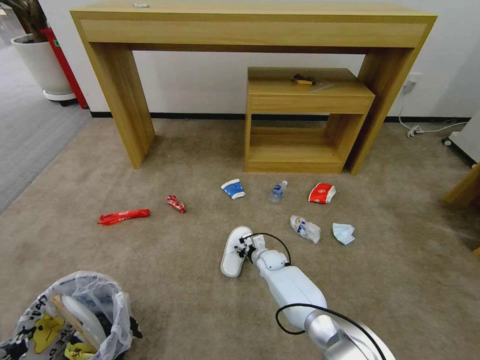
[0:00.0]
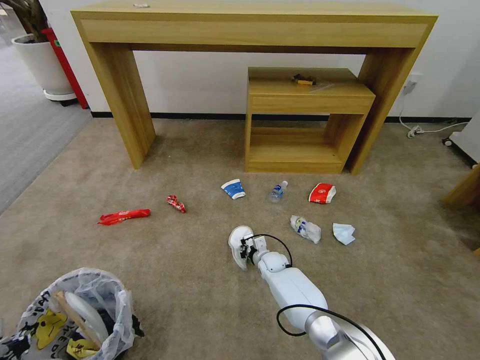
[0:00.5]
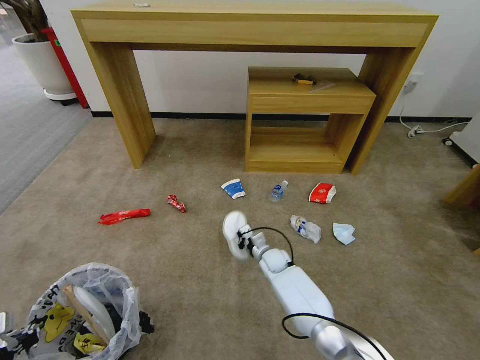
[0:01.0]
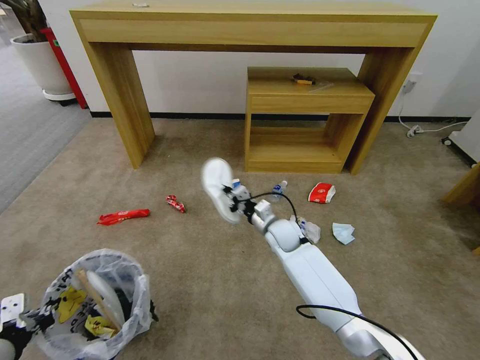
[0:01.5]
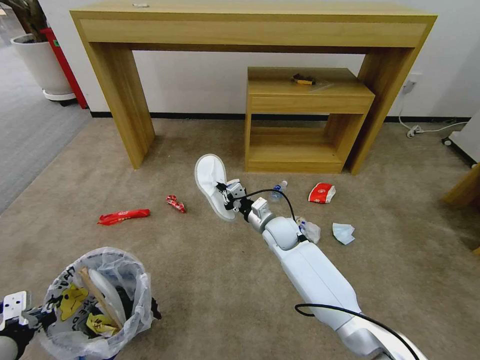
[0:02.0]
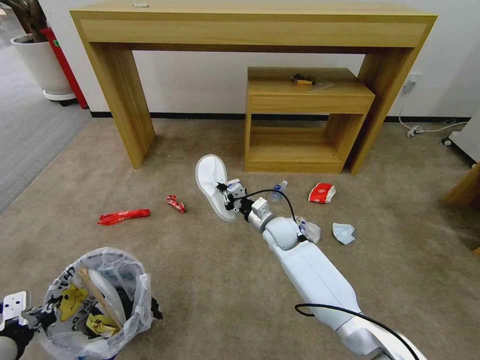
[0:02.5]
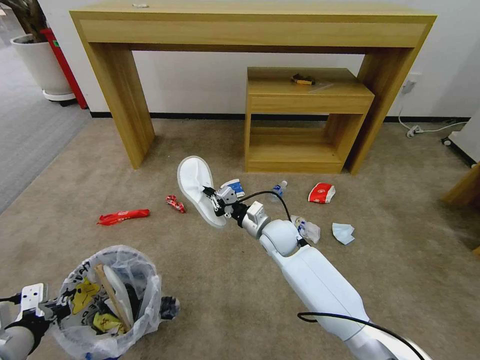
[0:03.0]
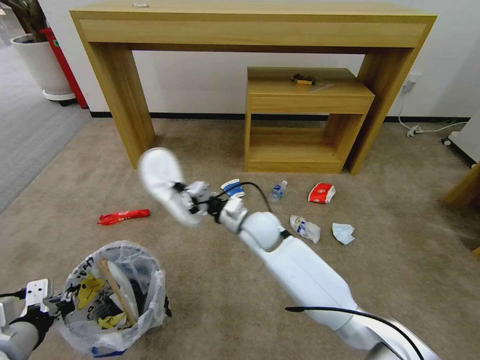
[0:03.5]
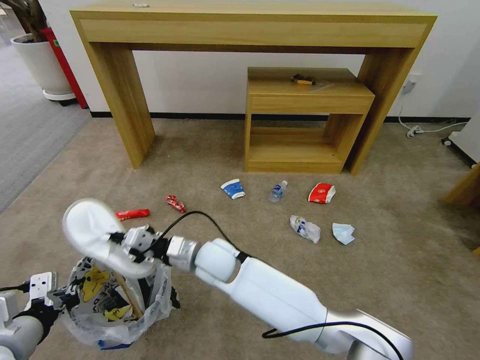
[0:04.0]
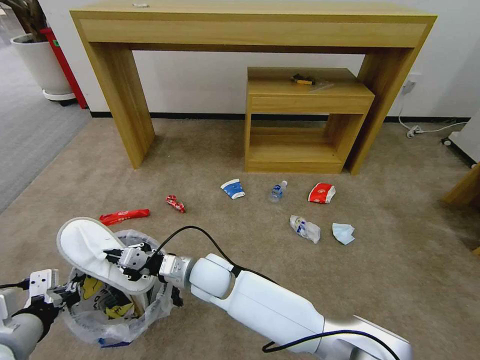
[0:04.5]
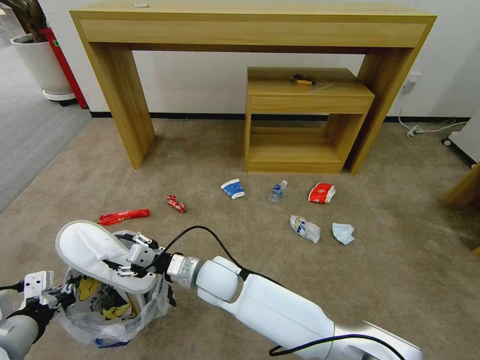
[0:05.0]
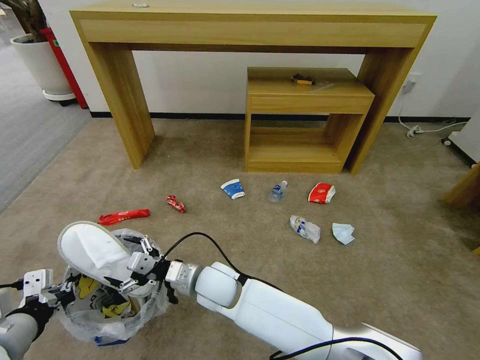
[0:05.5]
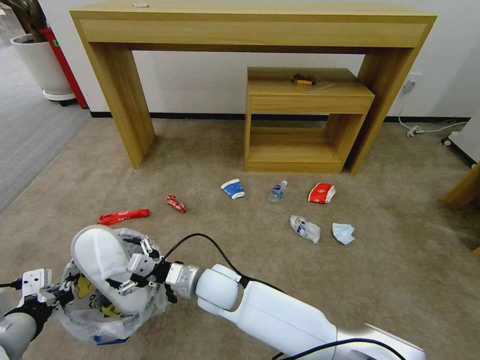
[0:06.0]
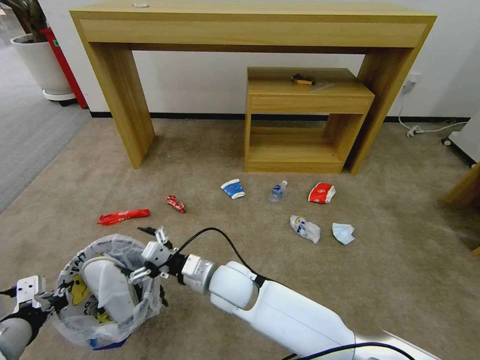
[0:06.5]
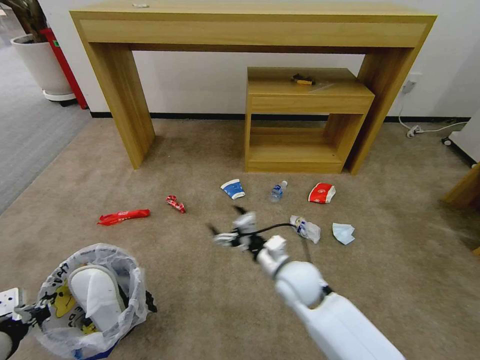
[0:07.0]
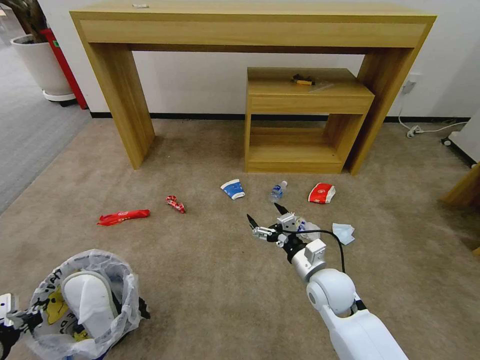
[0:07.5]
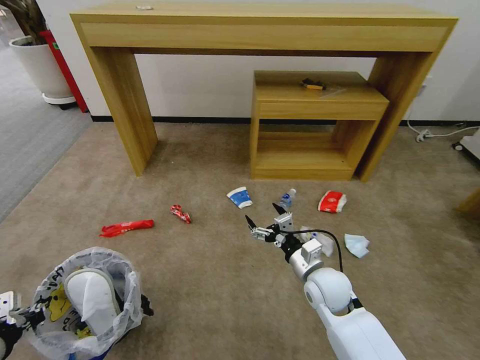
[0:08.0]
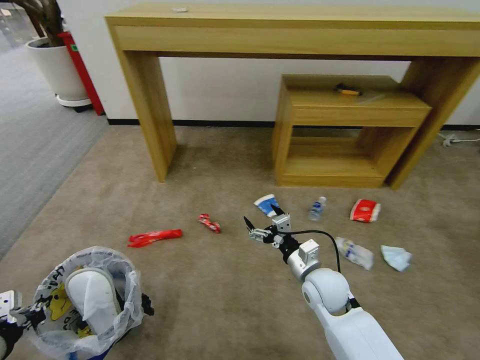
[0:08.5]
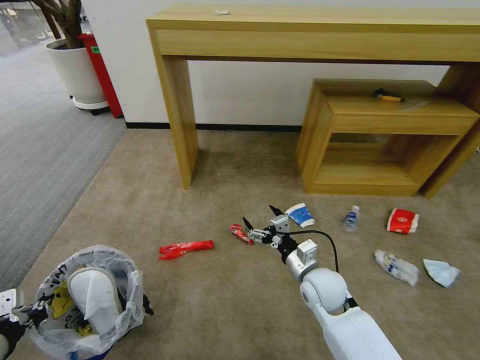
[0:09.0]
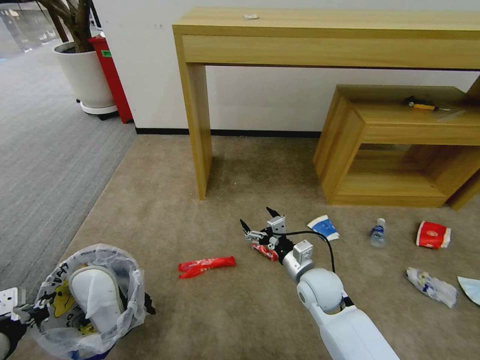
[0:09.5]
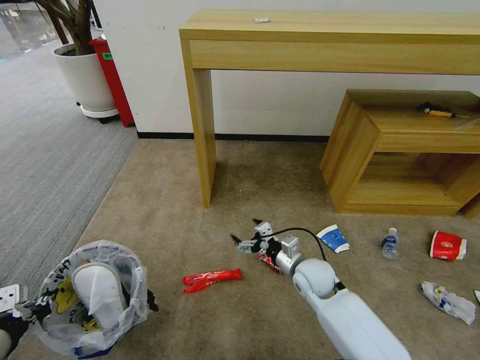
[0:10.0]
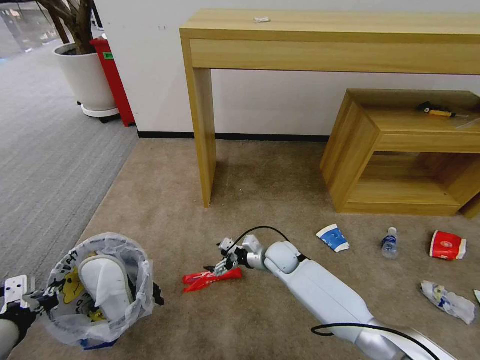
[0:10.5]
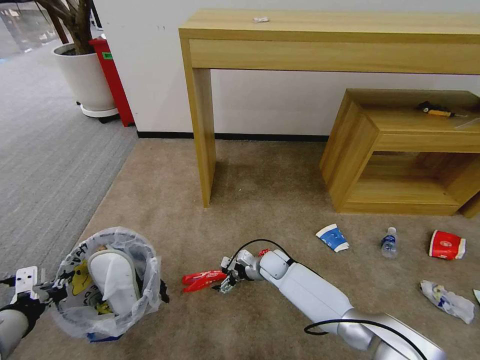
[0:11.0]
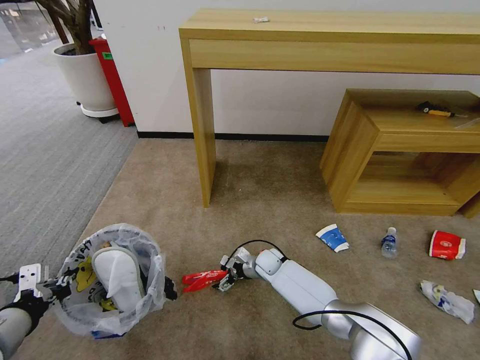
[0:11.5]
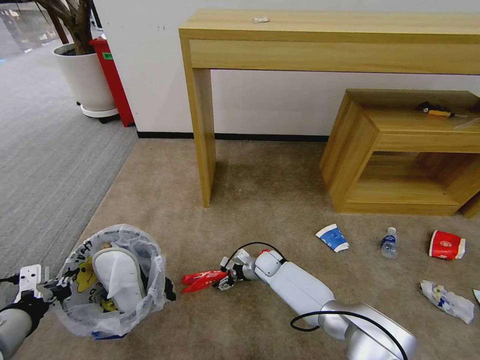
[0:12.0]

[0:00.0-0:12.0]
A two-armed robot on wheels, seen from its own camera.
Task of the whole recording: Pick up the trash bin and place the garbage on the floor into it.
0.0 to 2.0 s: The left gripper changes place by some 5 cm. Meanwhile the right gripper moves upward, approximately 15 cm, and closes its fingers.
2.0 to 4.0 s: The left gripper changes place by about 5 cm, while the right gripper shifts approximately 20 cm to the left and backward.
4.0 to 6.0 s: The right gripper moves approximately 5 cm, and opens its fingers.
6.0 to 8.0 s: The left gripper goes roughly 5 cm to the left. The right gripper goes approximately 25 cm to the right.
8.0 to 10.0 s: The right gripper ends up approximately 5 cm from where it was.
10.0 to 12.0 s: The right gripper travels downward, forward and to the left by roughly 20 cm.

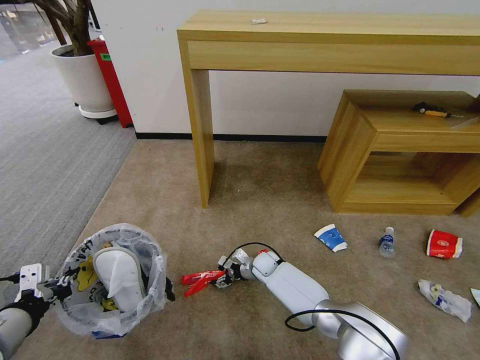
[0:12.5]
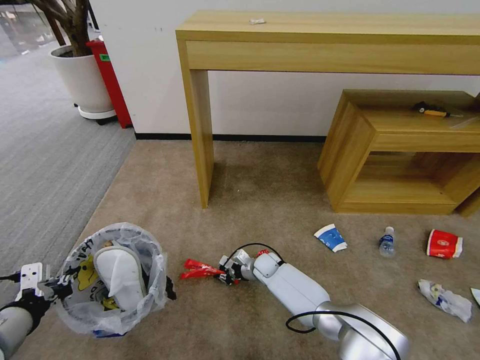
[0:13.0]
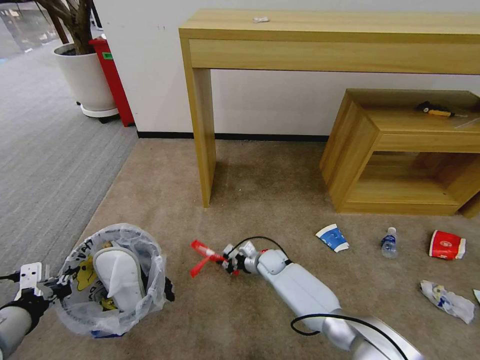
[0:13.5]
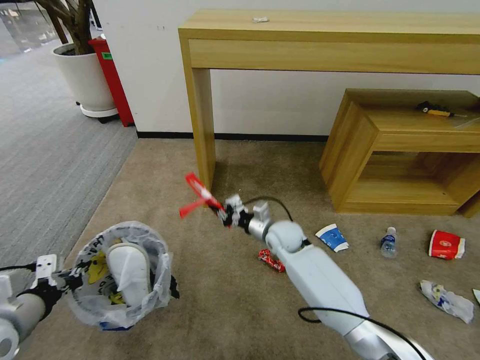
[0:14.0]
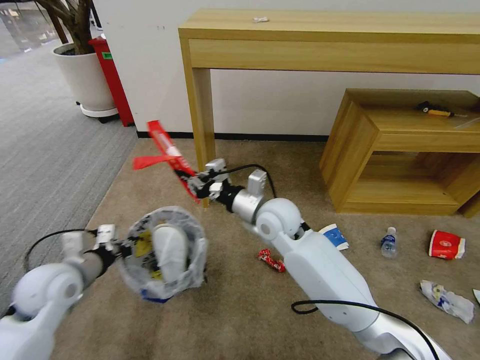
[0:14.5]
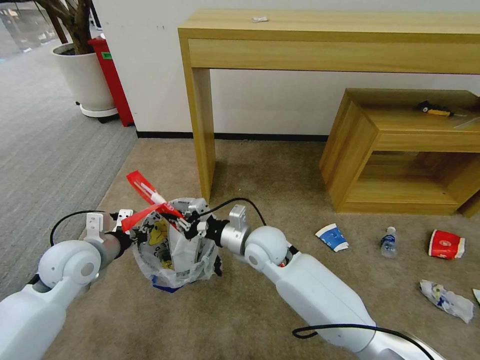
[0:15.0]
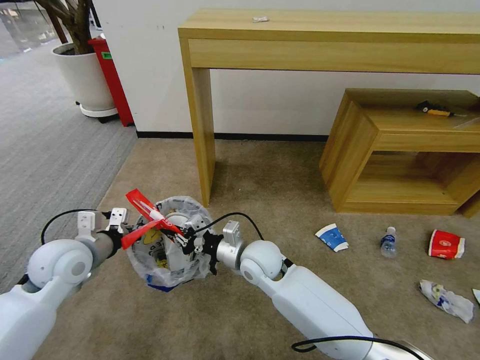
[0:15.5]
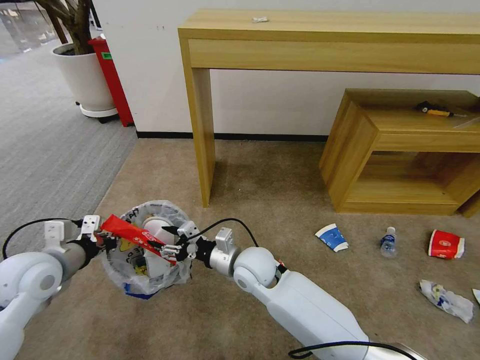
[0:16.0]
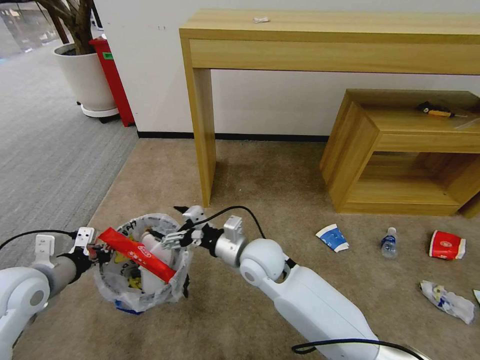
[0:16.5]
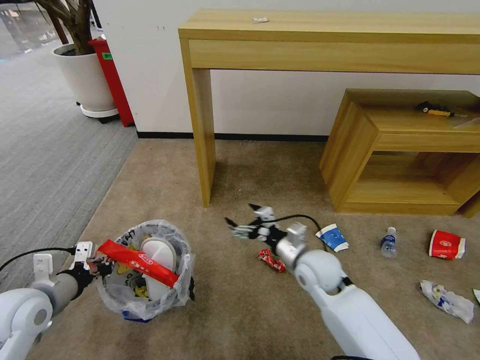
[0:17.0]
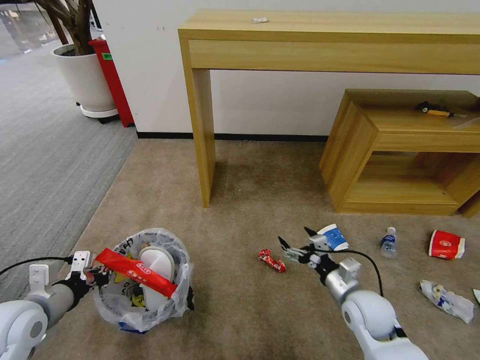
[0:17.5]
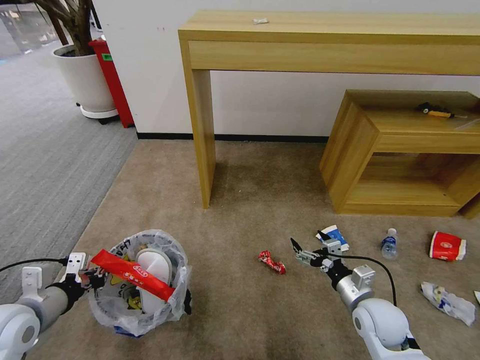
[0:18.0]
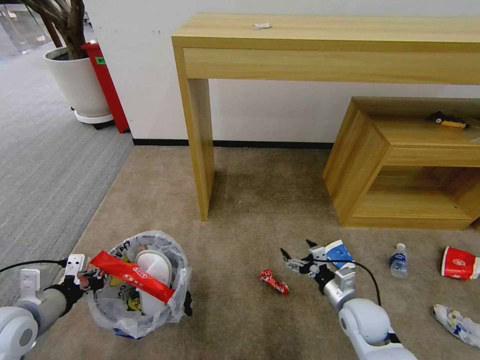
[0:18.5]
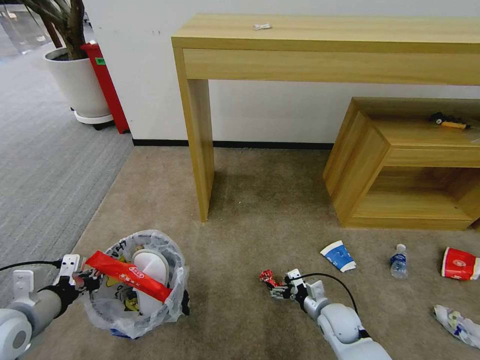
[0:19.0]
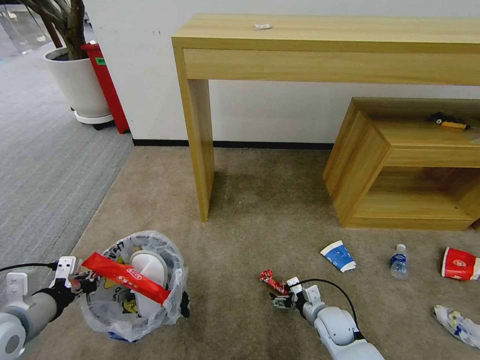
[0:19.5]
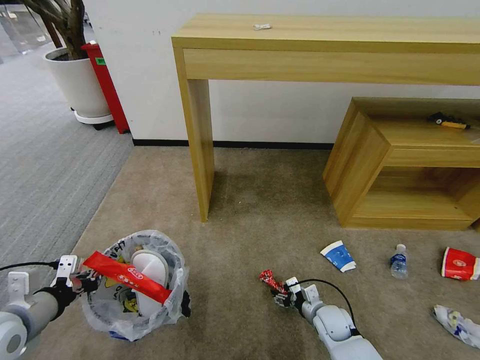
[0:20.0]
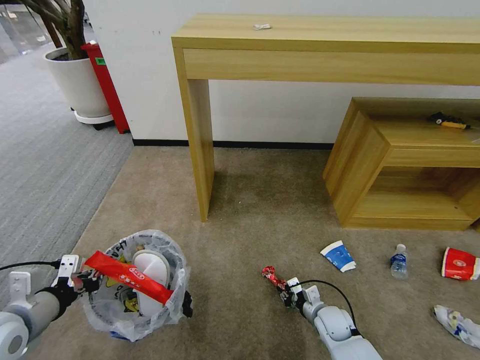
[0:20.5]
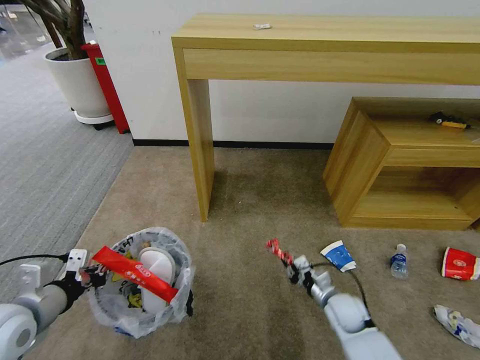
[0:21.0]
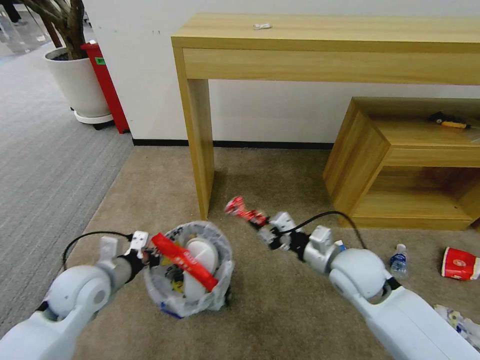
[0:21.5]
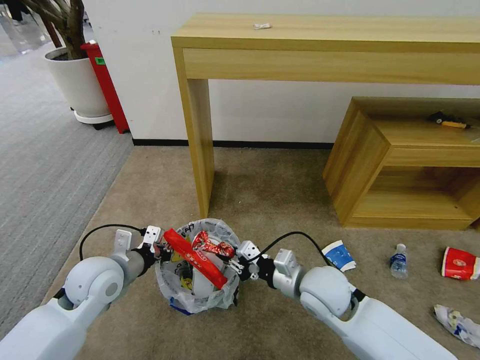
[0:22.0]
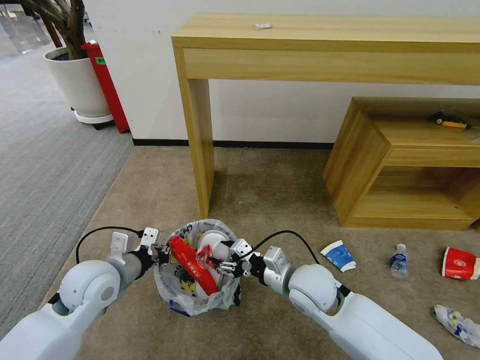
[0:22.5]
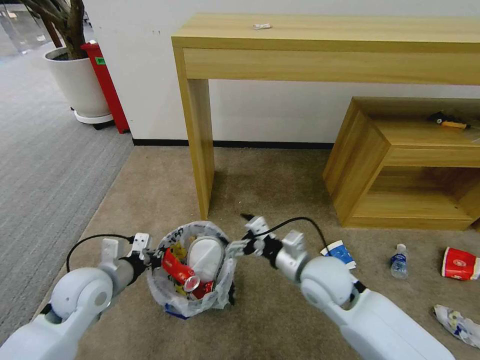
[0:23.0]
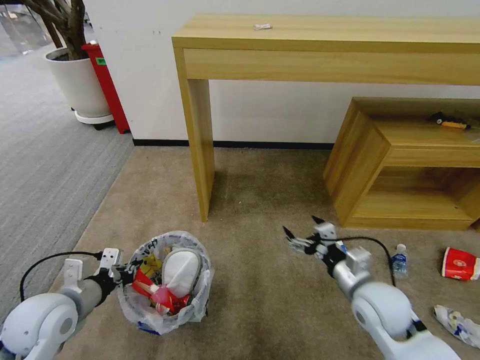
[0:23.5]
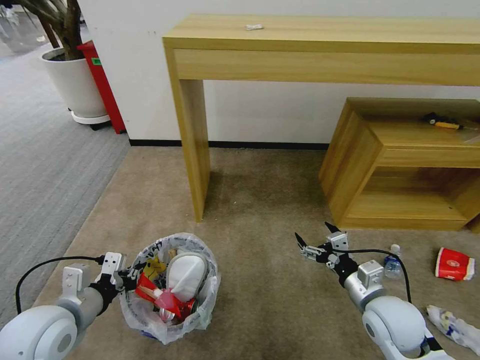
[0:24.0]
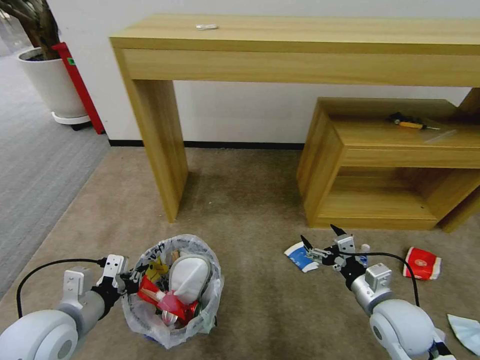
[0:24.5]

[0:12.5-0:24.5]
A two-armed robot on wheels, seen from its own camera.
Task of the whole recording: Pick up the trash bin and place the garbage on the floor into it.
12.5 to 14.5 s: The left gripper is displaced forward by approximately 15 cm, while the right gripper moves upward, roughly 30 cm, and closes up.
14.5 to 16.5 s: The right gripper is displaced backward and downward by about 10 cm, and opens its fingers; the left gripper shifts by approximately 5 cm.
16.5 to 18.5 s: The left gripper goes roughly 5 cm backward; the right gripper shifts approximately 25 cm to the right and downward.
18.5 to 20.5 s: The right gripper is displaced downward by about 15 cm, and closes its fingers.
20.5 to 22.5 s: The left gripper travels to the right and forward by approximately 15 cm. The right gripper travels upward and to the left by approximately 25 cm, and opens its fingers.
22.5 to 24.5 s: The right gripper heads to the right, covering some 15 cm, and opens; the left gripper is displaced backward by about 10 cm.

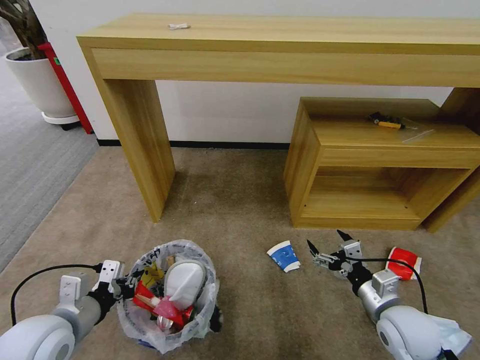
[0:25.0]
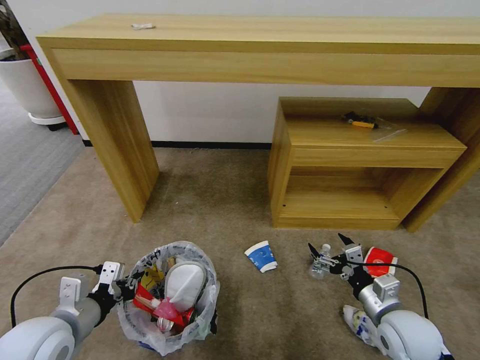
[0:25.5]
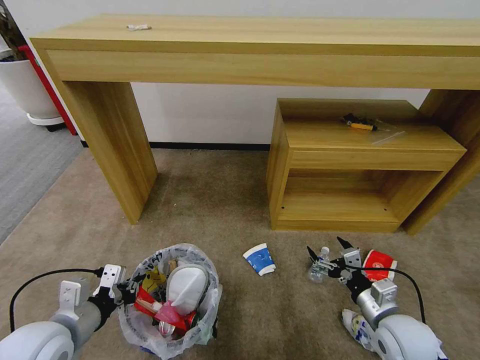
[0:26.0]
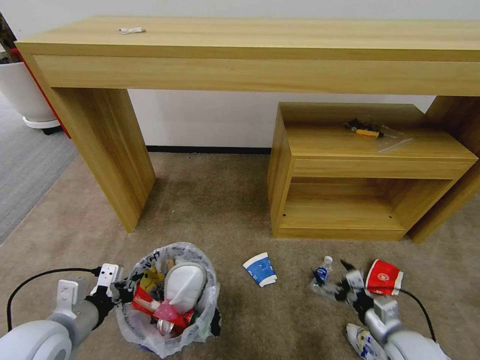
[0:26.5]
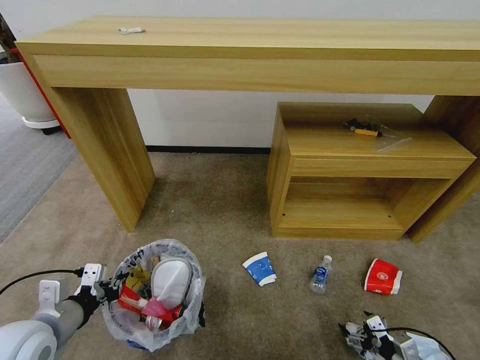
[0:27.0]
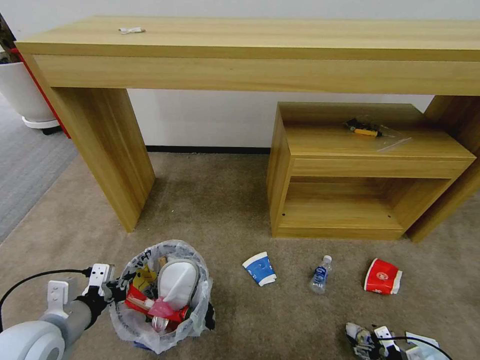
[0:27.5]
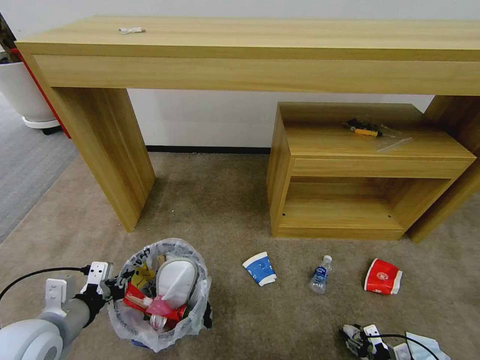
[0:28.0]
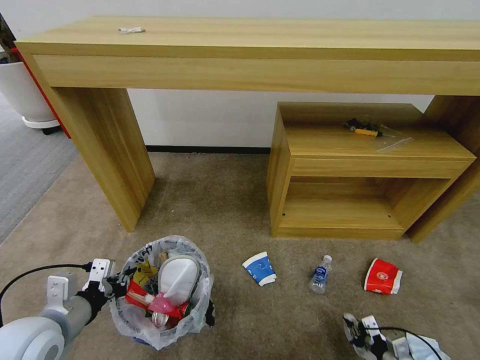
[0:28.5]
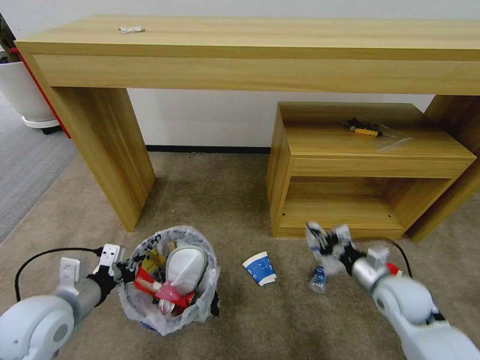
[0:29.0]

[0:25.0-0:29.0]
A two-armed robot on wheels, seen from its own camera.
Task of the whole recording: Pick up the trash bin and place the garbage on the floor into it.
25.0 to 27.0 s: The right gripper travels downward, to the right and backward by roughly 20 cm.
27.0 to 29.0 s: The right gripper shifts about 20 cm forward, upward and to the left, and closes its fingers.
